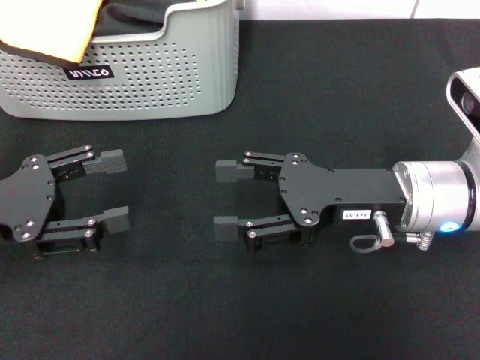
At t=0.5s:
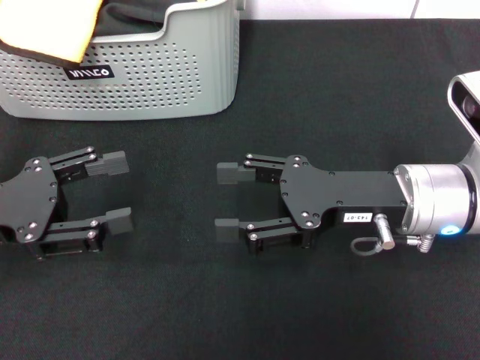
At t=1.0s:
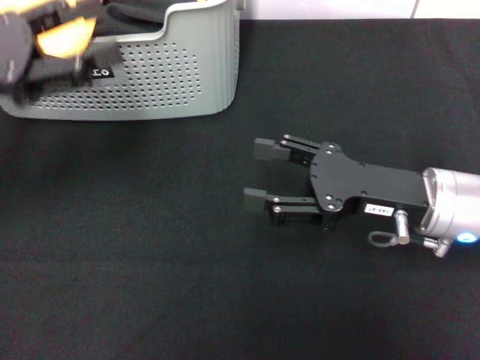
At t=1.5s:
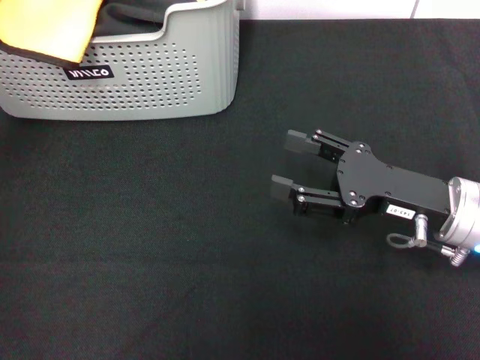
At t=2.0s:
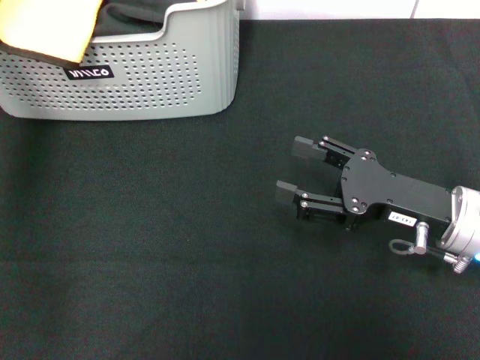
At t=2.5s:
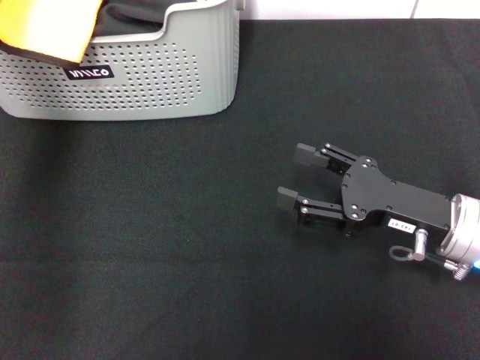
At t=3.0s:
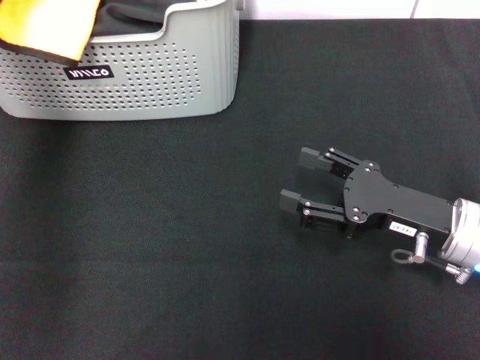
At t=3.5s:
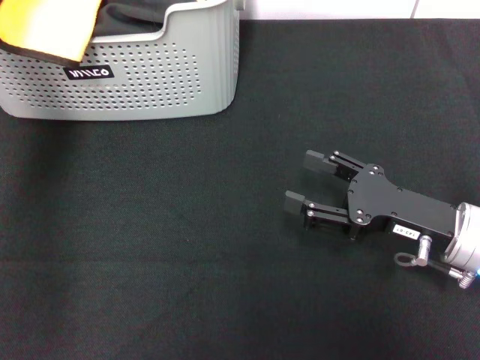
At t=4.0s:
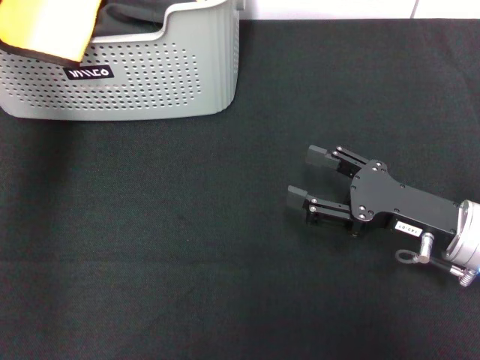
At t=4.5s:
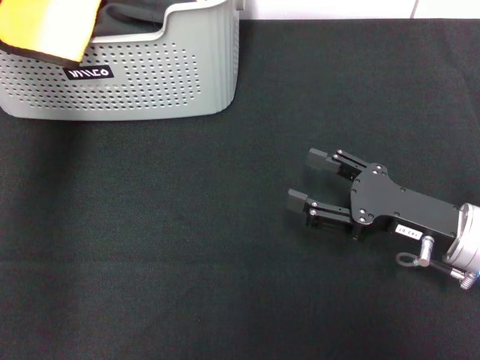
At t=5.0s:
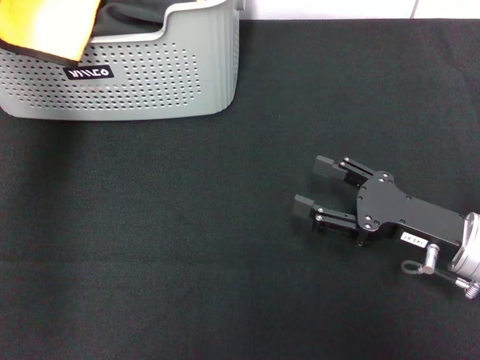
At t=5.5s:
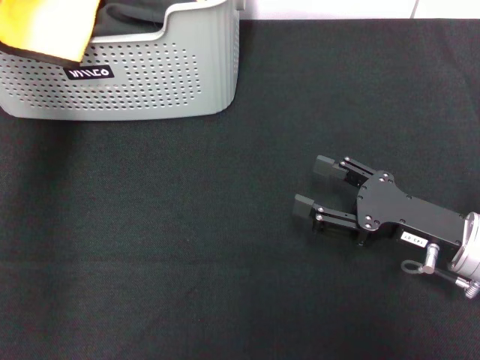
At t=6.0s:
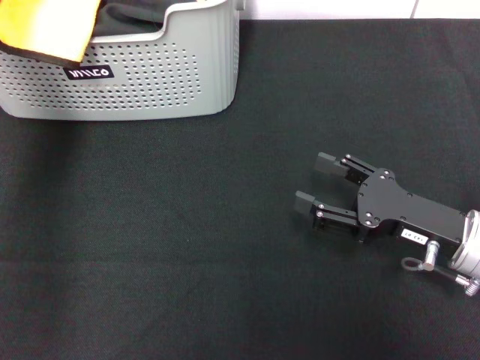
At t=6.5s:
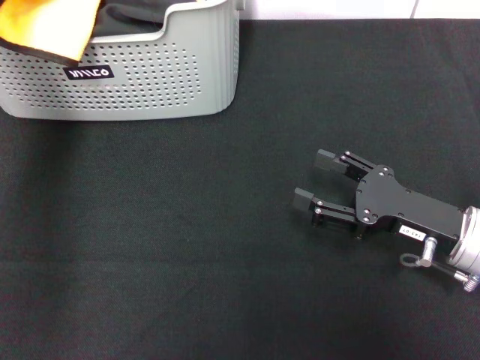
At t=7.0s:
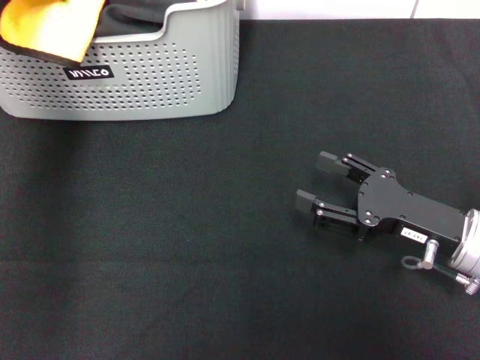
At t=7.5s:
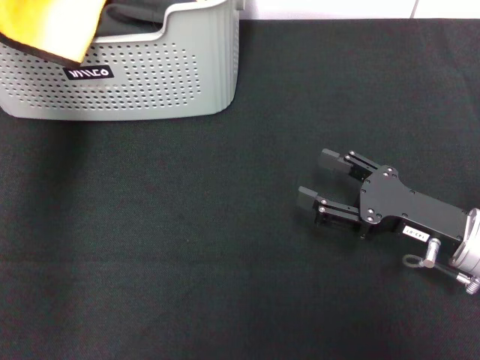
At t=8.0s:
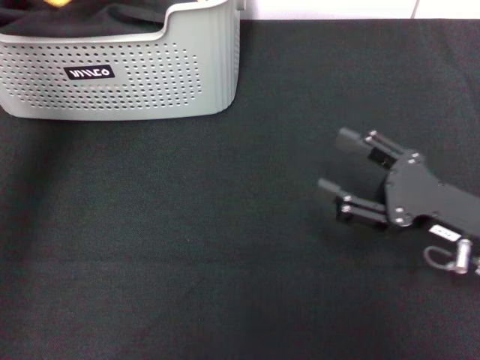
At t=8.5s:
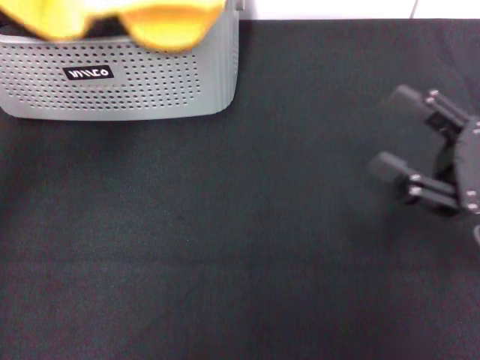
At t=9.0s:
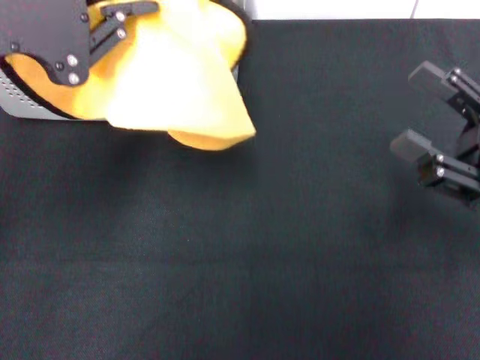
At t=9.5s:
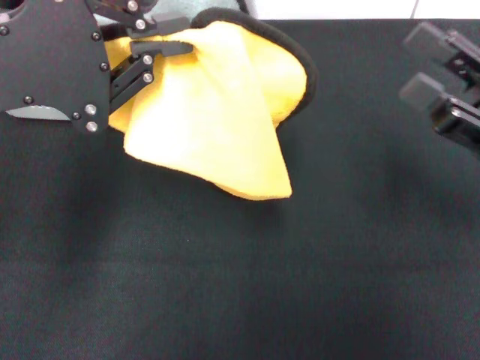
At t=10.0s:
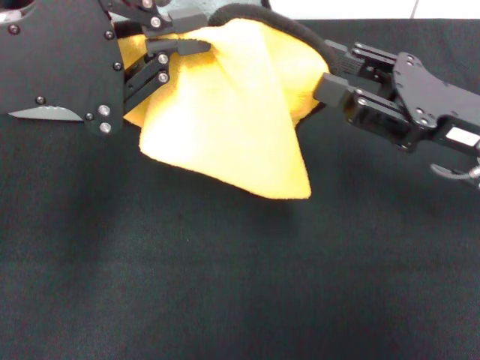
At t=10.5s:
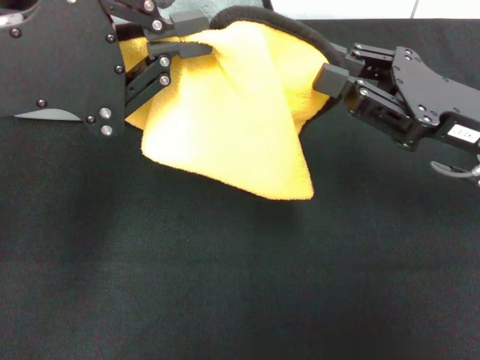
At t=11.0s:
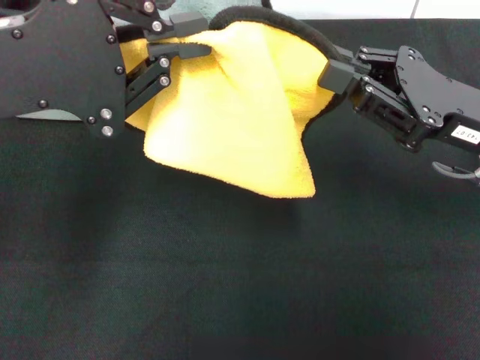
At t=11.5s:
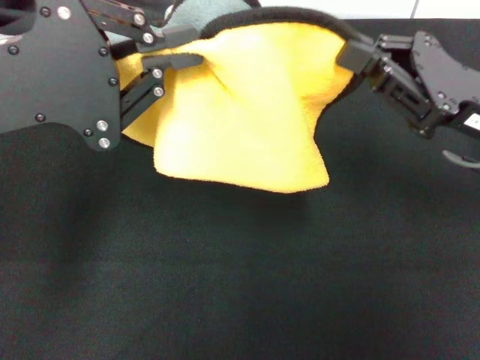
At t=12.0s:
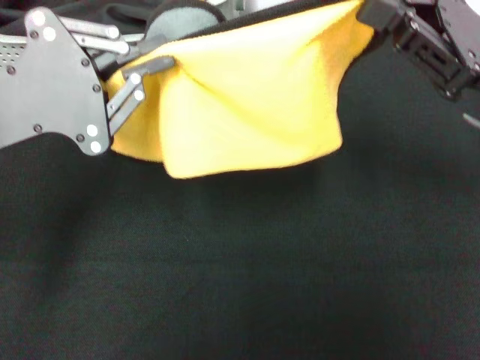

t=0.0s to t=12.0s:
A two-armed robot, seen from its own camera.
Task of the whole recording: pick up the towel from the storage box and lay it flat on the black tablecloth.
Step, t=0.0s to t=7.0s: Pick up a towel with the left gripper.
Step, t=7.5s to t=11.0s: Spread the towel flat with the left gripper.
t=0.0s to t=2.0s: The right gripper heads to the right, covering roughly 5 cm. The left gripper shifts approximately 25 cm upward and forward.
t=2.0s to t=4.0s: The left gripper closes.
t=6.0s to t=8.0s: The left gripper moves backward and upward, about 15 cm, and closes up.
t=8.0s to t=10.0s: The left gripper moves backward and downward, approximately 10 cm. The right gripper travels upward and forward by approximately 10 cm, and closes.
t=10.0s to t=12.0s: The right gripper closes its fingers. Meanwhile the left gripper travels downward by roughly 5 cm.

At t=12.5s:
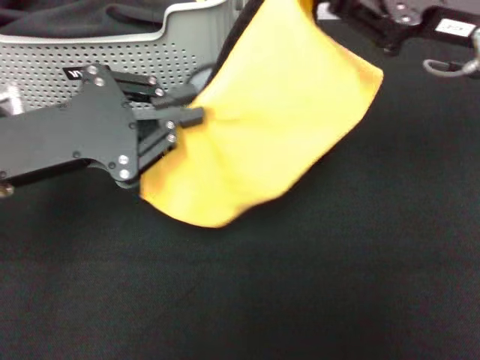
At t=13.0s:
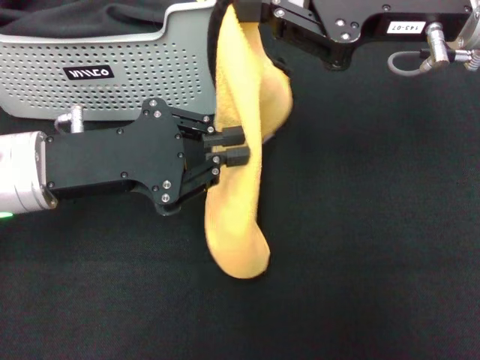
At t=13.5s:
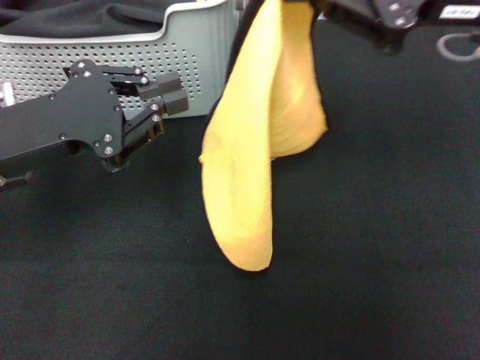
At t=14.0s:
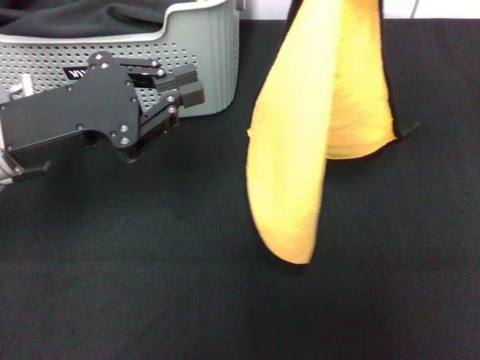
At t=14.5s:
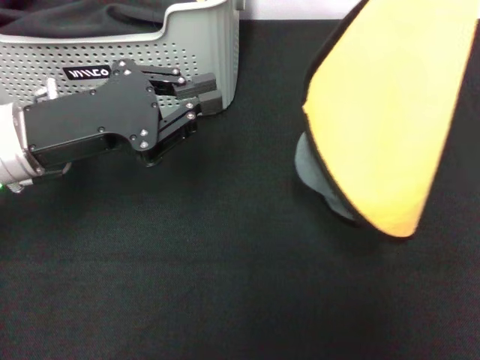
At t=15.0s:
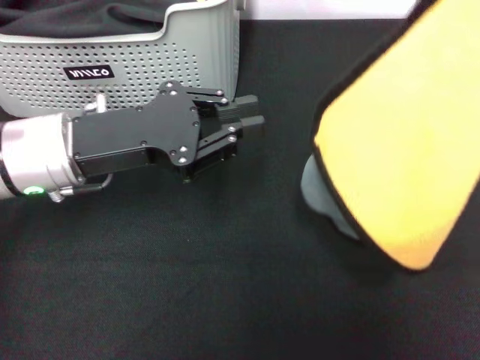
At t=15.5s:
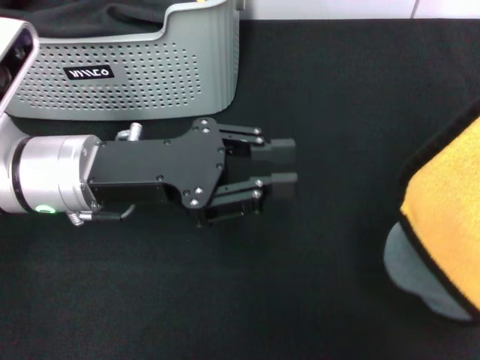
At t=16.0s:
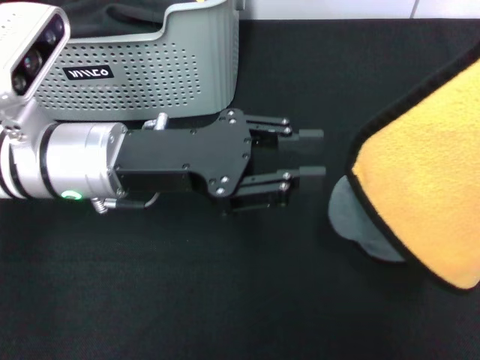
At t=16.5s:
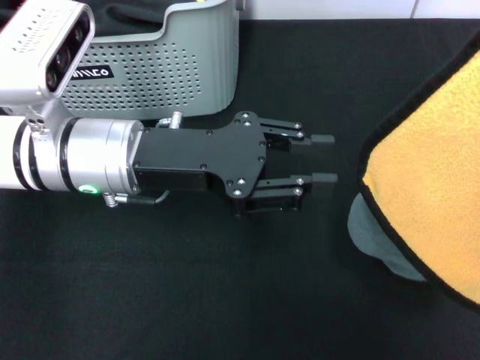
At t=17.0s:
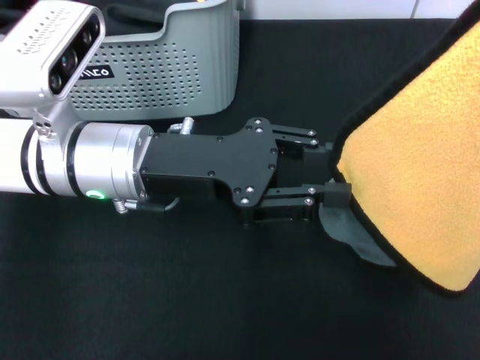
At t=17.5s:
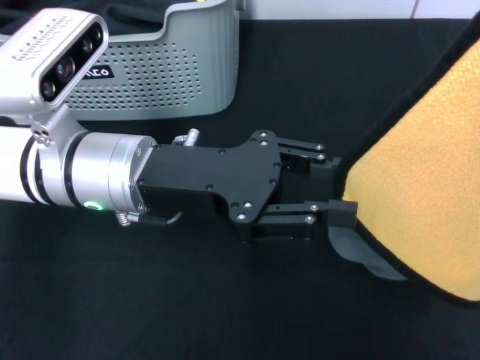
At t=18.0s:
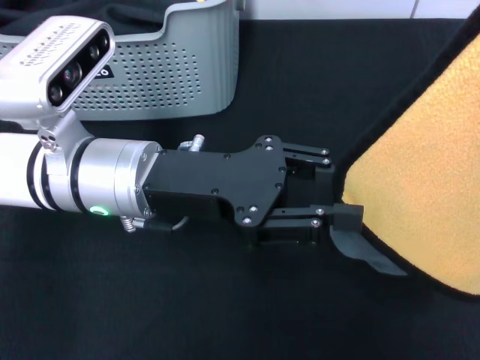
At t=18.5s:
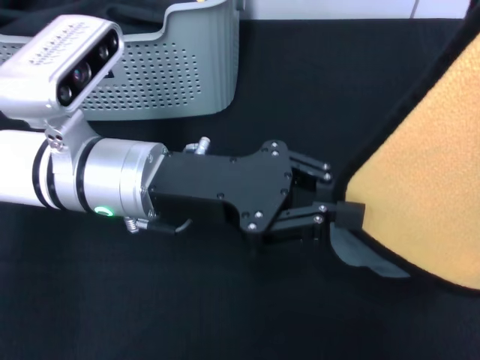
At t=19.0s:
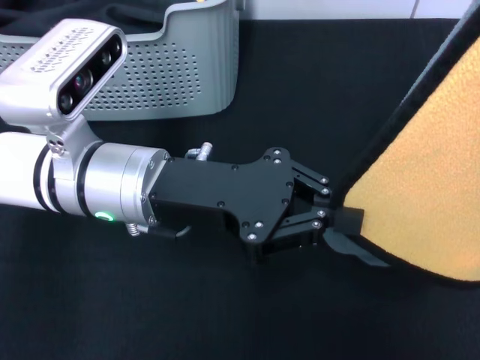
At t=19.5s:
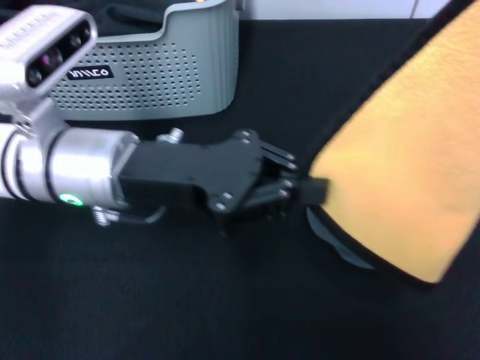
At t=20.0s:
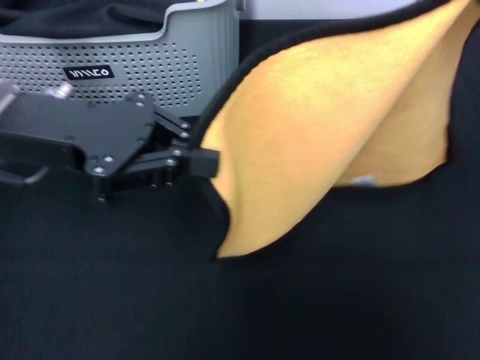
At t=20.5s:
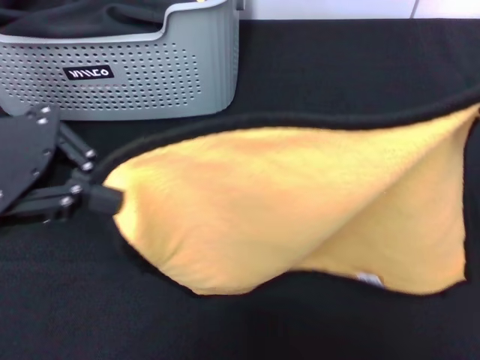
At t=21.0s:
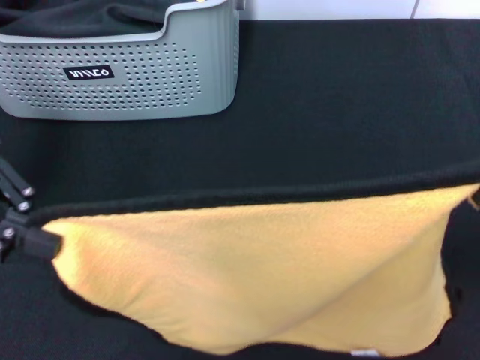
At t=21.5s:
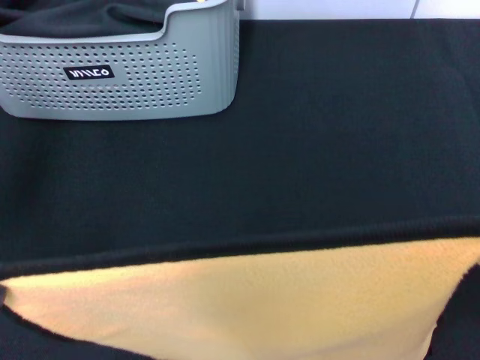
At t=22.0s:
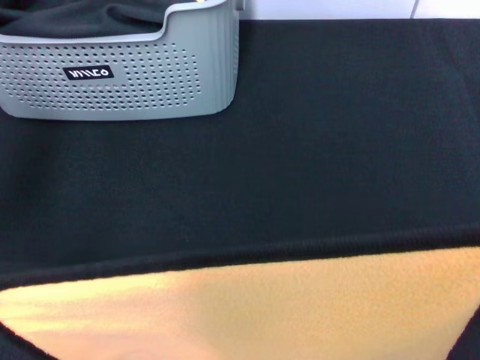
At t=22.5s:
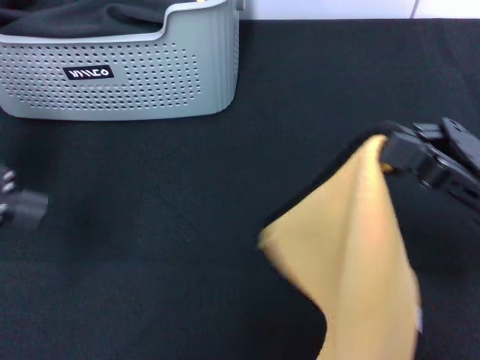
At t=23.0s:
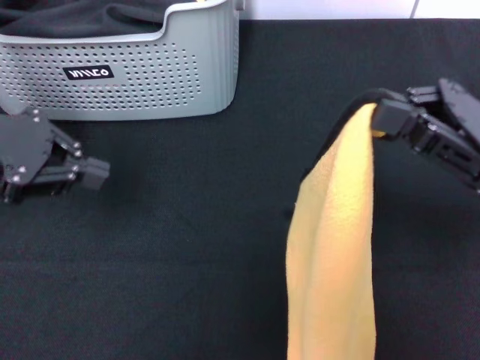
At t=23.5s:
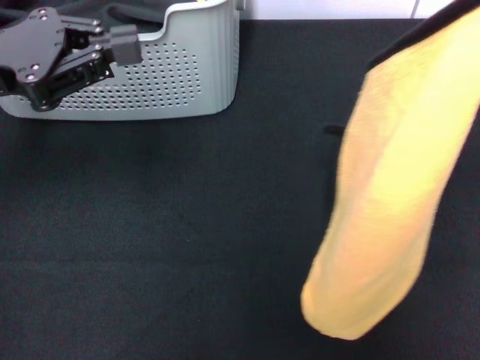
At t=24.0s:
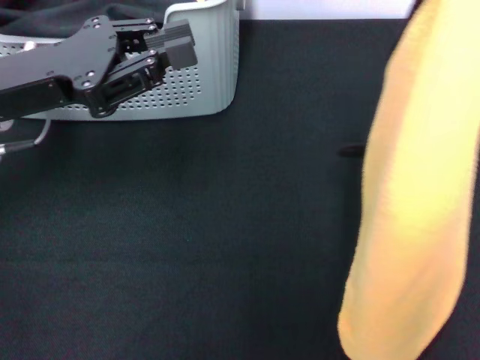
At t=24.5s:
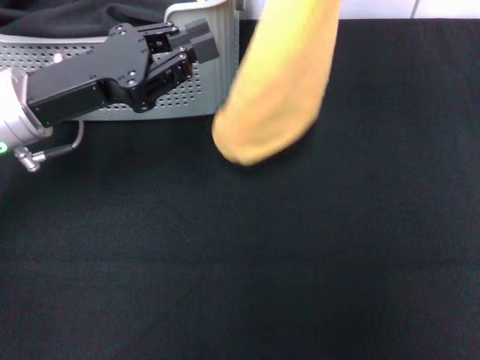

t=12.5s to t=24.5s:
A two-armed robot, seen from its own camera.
Task of the whole recording: pick up the towel from the storage box and lay it flat on the black tablecloth.
t=12.5s to t=14.5s: The right gripper travels upward and to the right by approximately 15 cm.
t=14.5s to t=16.5s: The left gripper travels to the right by approximately 10 cm, and opens.
t=18.5s to t=20.5s: The left gripper is displaced to the left and upward by approximately 20 cm. Meanwhile the right gripper goes about 15 cm downward.
t=20.5s to t=22.5s: The right gripper goes about 10 cm downward and to the left.
t=22.5s to t=24.5s: The right gripper moves upward and forward, about 20 cm. The left gripper moves downward, to the right and forward, some 15 cm.

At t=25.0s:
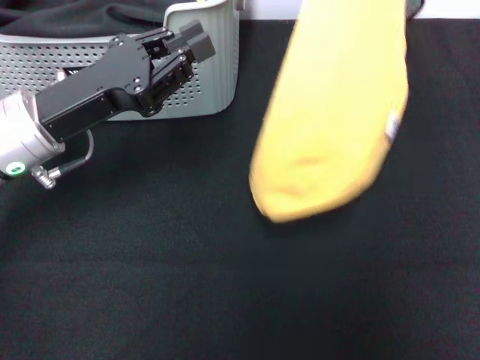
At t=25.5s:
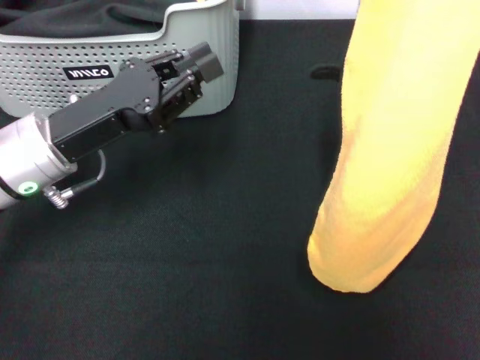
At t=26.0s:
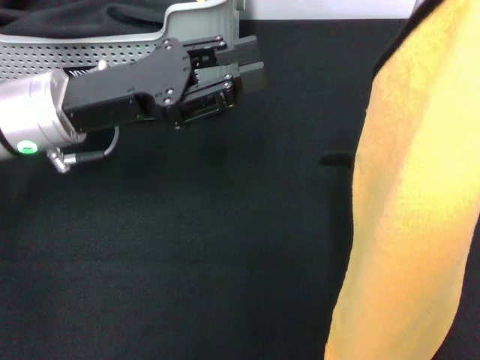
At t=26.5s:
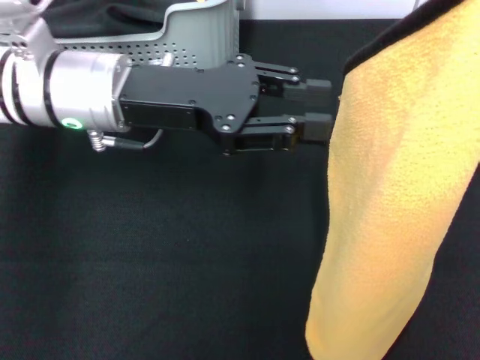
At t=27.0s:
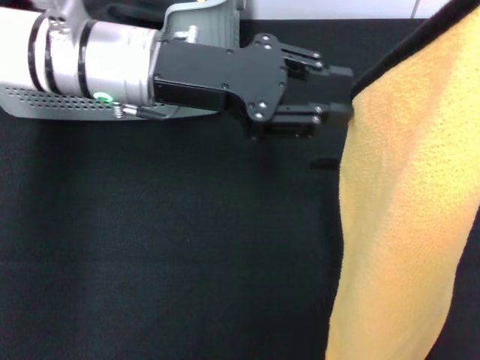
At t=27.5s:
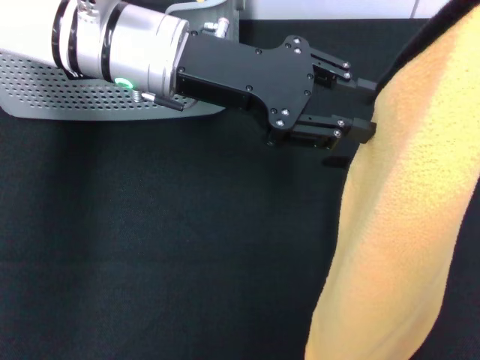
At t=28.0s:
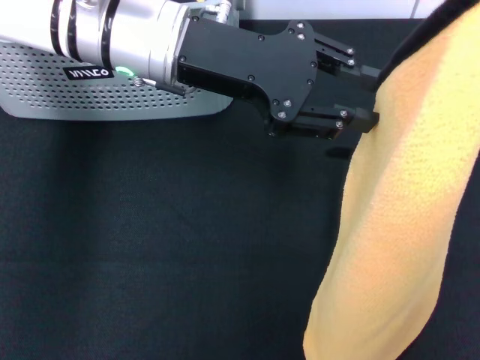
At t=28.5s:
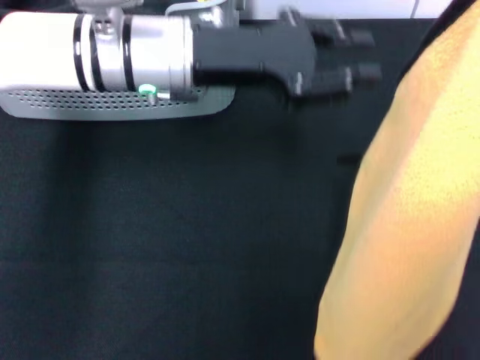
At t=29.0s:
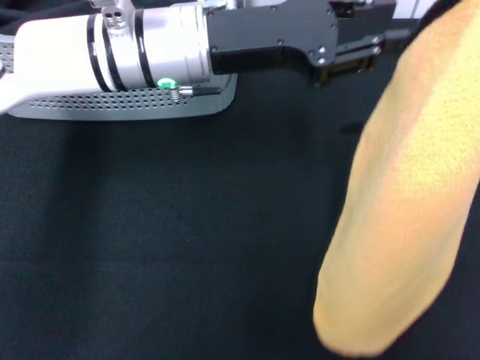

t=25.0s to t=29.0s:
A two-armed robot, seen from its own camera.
Task of the whole recording: pick up the towel from the storage box and lay it flat on the black tablecloth.
t=25.0s to t=27.0s: The left gripper heads to the right, upward and forward, covering some 10 cm.
